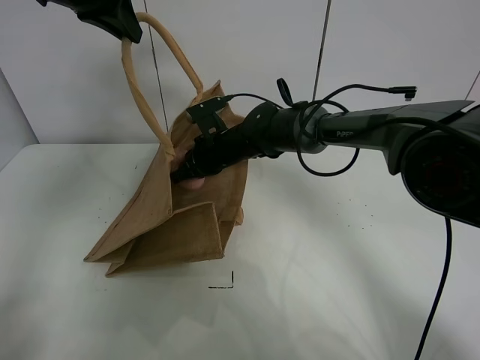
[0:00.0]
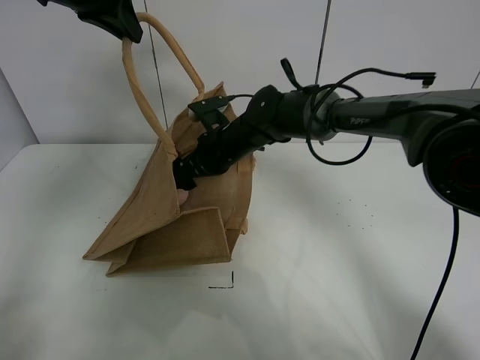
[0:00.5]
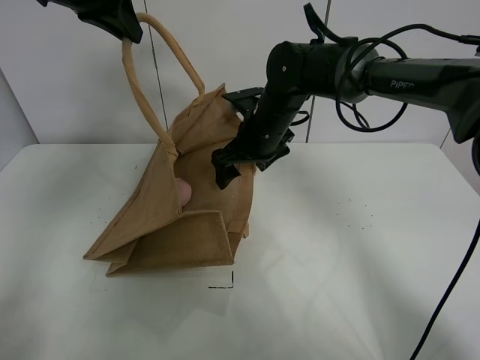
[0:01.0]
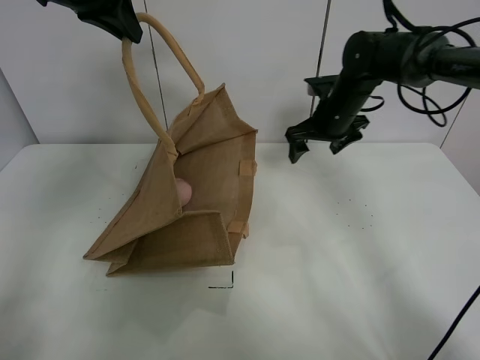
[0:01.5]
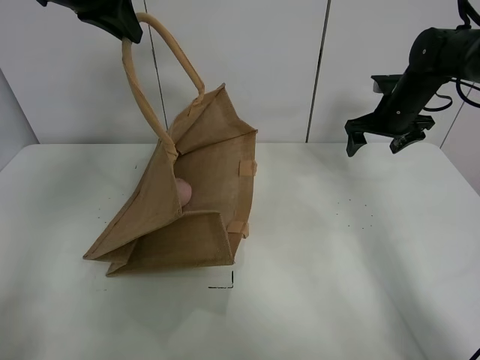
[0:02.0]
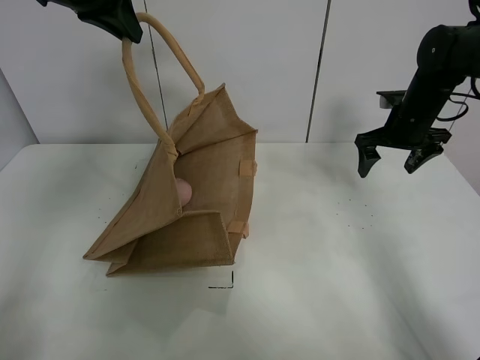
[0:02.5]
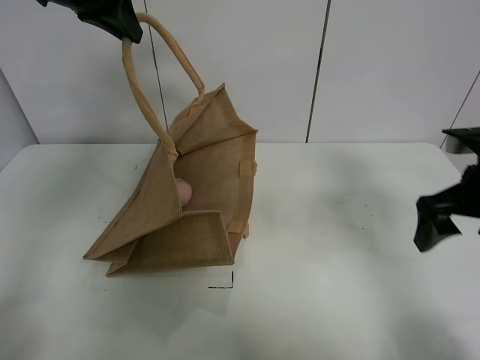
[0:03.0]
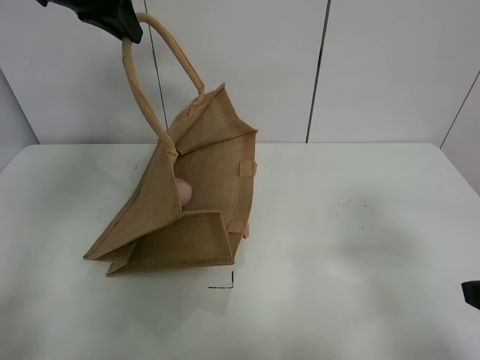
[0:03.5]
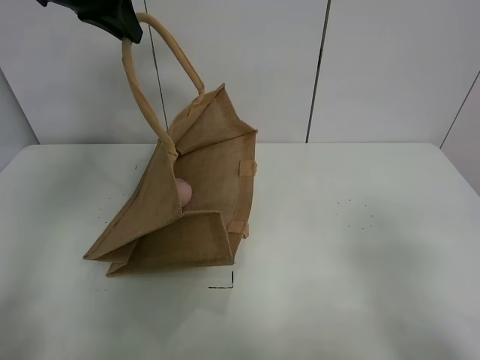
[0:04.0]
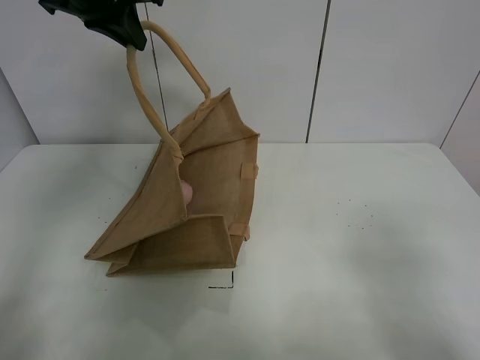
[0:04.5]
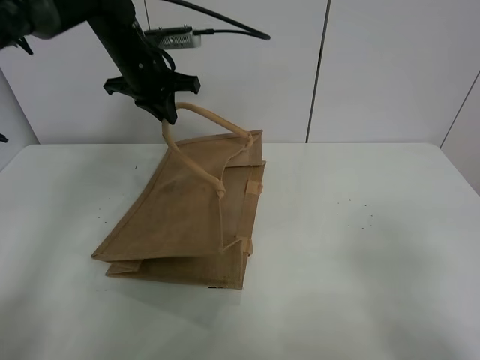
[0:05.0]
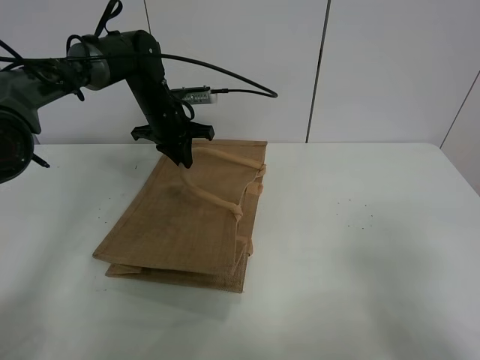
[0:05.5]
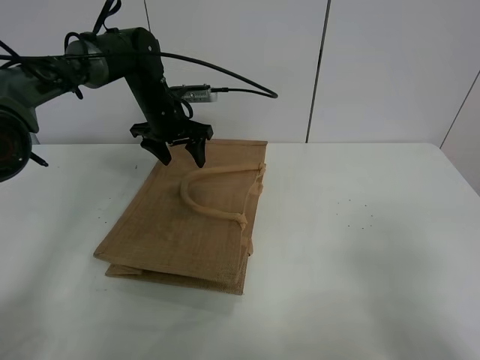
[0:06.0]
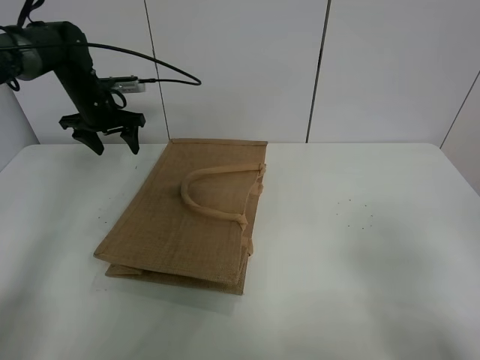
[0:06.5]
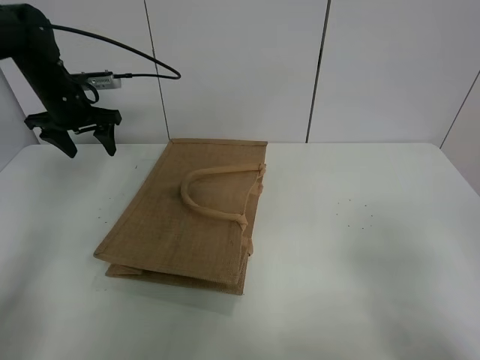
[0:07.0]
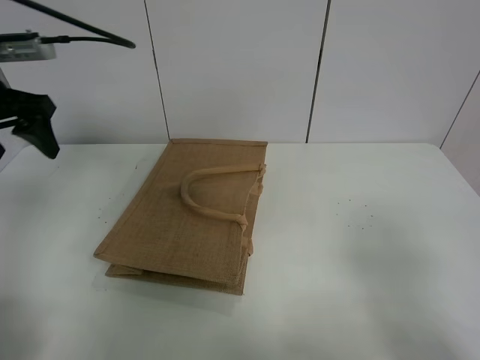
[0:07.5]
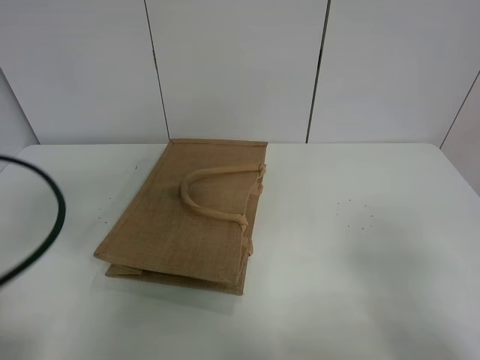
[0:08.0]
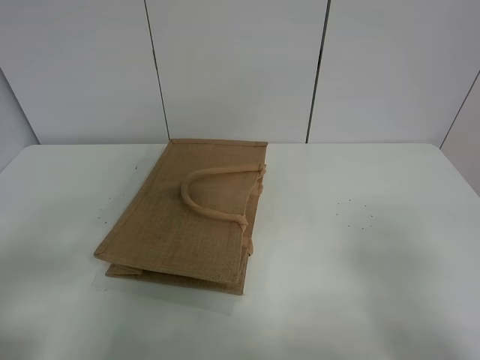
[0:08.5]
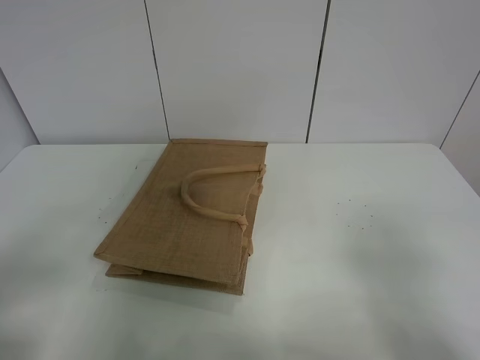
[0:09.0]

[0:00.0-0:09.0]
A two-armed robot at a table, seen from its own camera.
Task of the whole recording: open the brown linen bag and put the peach in the bag.
Step, 0:01.5 to 0:06.0: Put down the handbag with left grippe.
0:00.0 to 0:02.0: The right gripper moves to the right, roughly 30 cm, and opens its fingers.
0:02.0 to 0:04.5: The right gripper is displaced backward by roughly 50 cm.
0:04.5 to 0:07.0: The left gripper heads downward, to the left and forward, covering about 25 cm, and opens its fingers.
0:07.0 to 0:09.0: The left gripper shifts about 50 cm backward.
